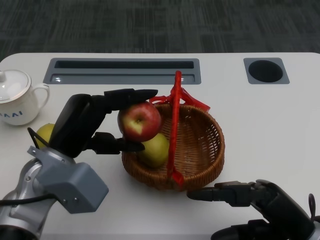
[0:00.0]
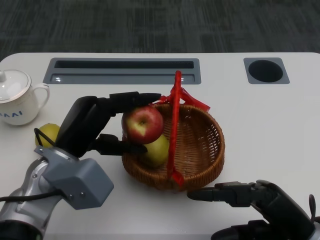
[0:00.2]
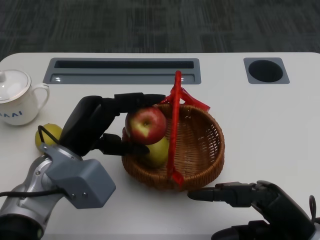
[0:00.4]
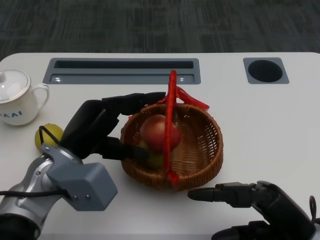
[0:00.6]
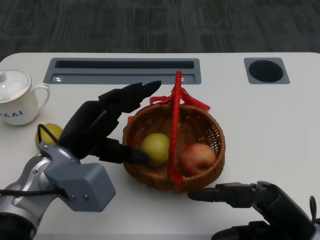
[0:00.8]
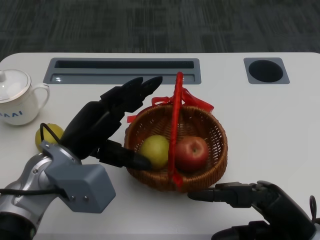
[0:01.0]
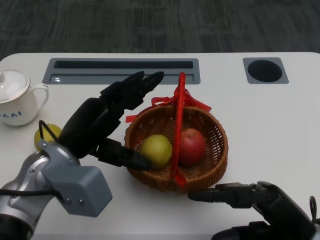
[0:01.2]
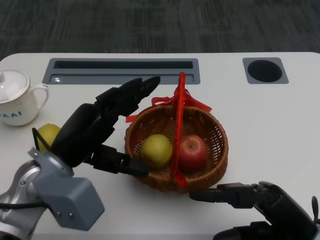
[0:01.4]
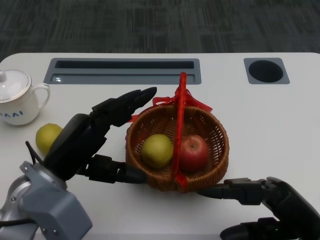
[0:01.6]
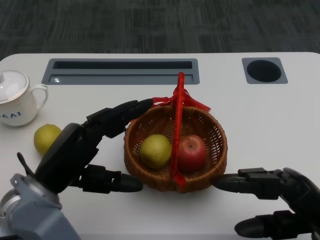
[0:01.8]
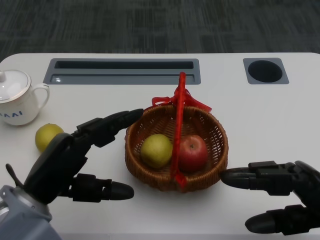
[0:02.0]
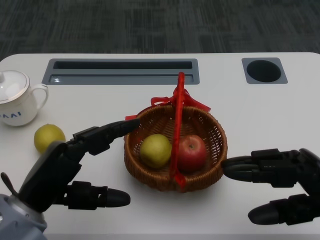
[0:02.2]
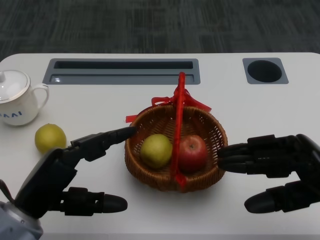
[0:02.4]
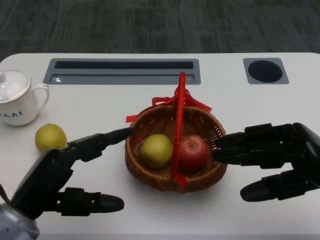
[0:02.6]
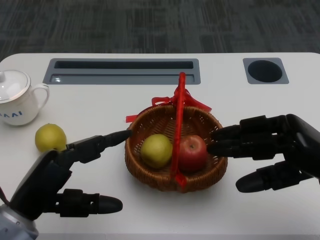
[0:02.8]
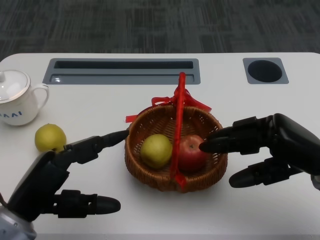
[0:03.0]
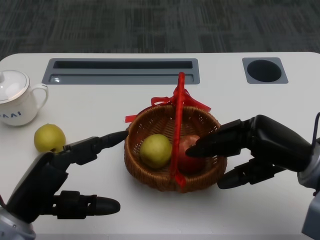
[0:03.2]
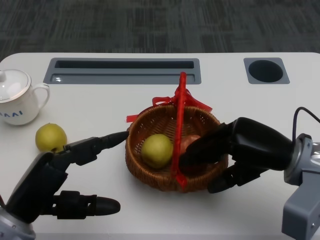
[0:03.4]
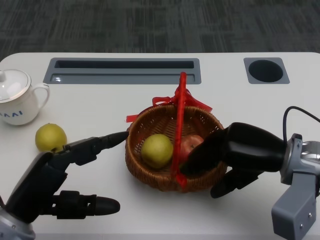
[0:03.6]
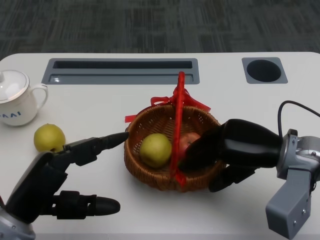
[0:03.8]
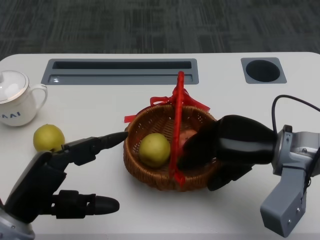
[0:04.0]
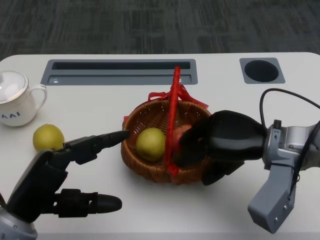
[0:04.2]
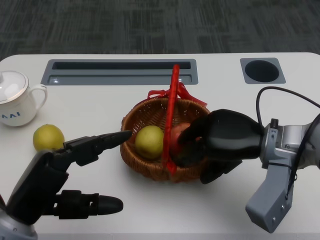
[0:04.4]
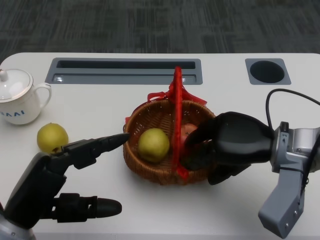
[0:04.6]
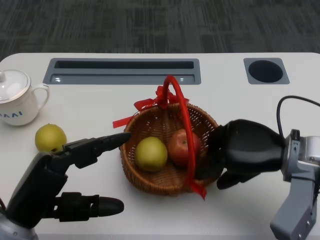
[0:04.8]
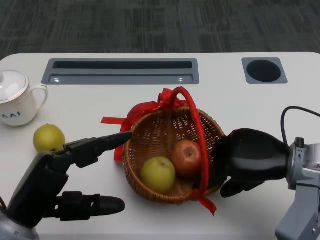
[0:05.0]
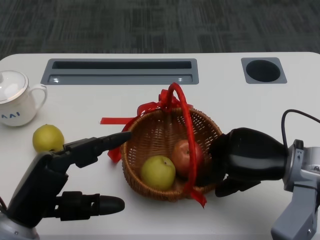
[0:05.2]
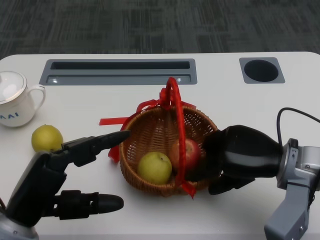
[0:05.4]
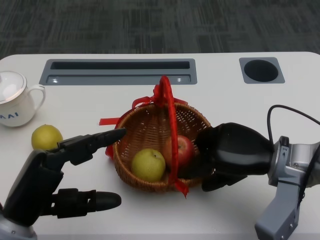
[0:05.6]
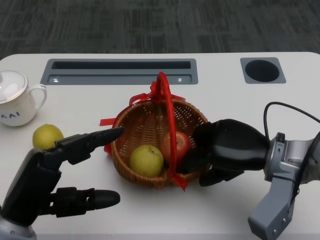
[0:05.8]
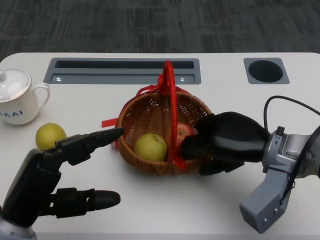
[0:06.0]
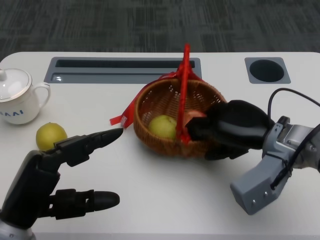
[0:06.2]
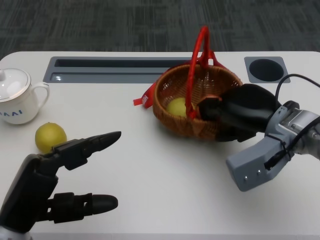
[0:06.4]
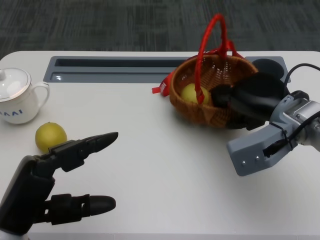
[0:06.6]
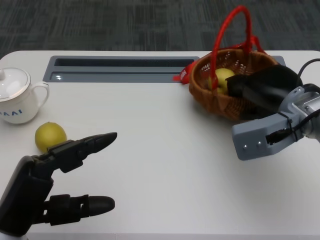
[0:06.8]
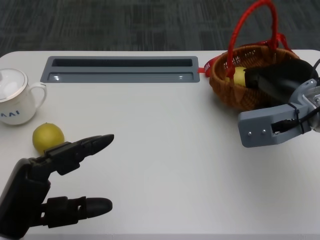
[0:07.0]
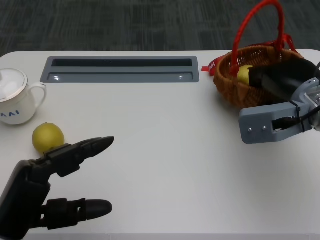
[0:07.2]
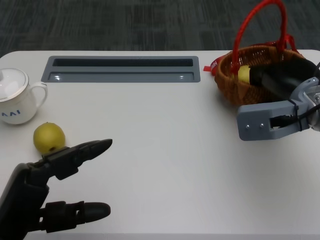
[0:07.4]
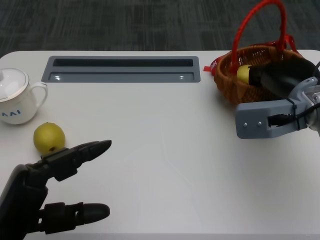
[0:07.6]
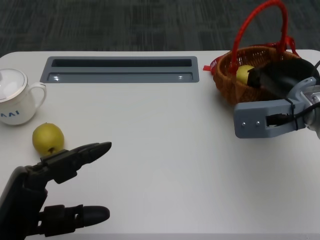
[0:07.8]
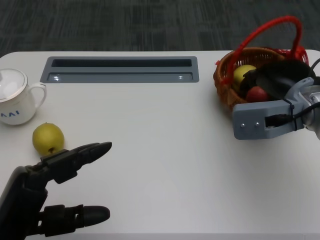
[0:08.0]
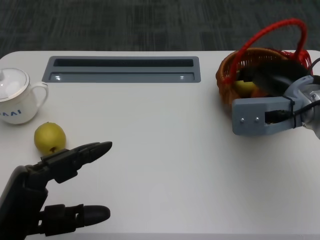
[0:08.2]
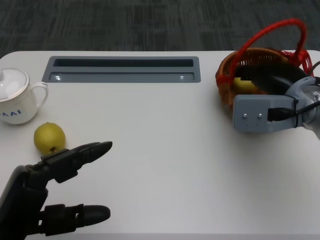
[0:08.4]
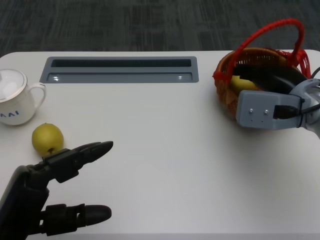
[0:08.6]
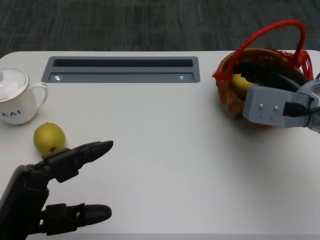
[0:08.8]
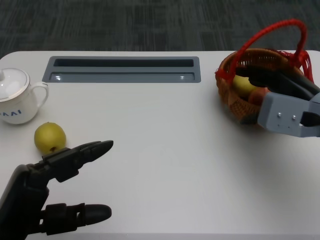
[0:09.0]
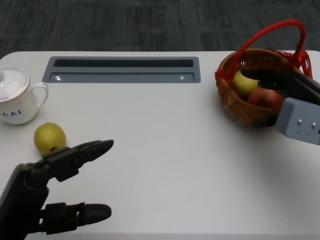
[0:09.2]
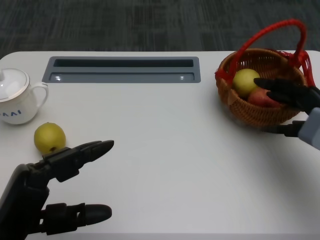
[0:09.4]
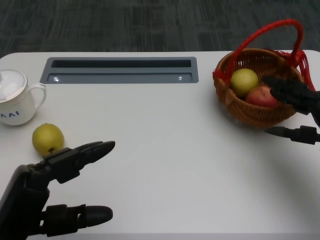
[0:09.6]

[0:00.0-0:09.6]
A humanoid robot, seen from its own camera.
Step, 0:00.0 to 0:02.2: Grasp the basket with the right gripper.
Step, 0:02.4 to 0:05.2: Move the basket to the front of the table with the right gripper.
0:01.6 to 0:03.2: The right hand moves forward, approximately 10 cm. The left hand heads backward, covering approximately 5 cm.
0:08.0 to 0:09.6: The right hand shifts some 10 cm to the right and backward.

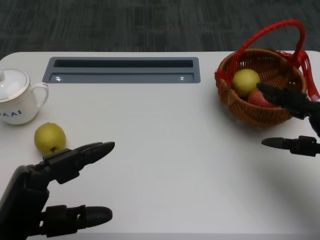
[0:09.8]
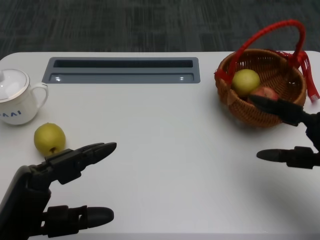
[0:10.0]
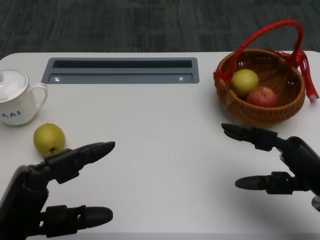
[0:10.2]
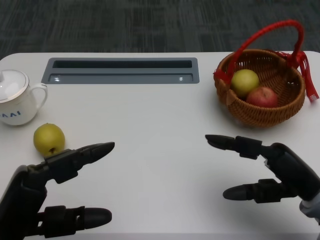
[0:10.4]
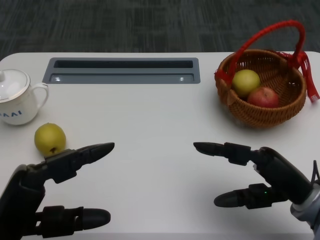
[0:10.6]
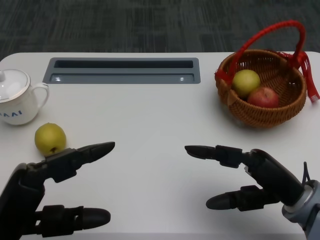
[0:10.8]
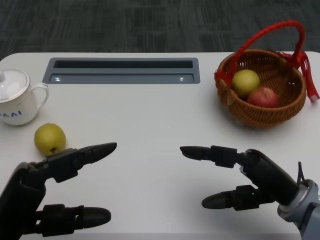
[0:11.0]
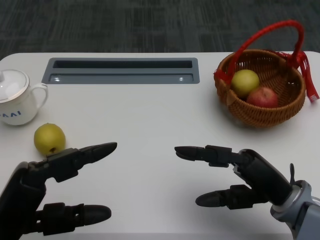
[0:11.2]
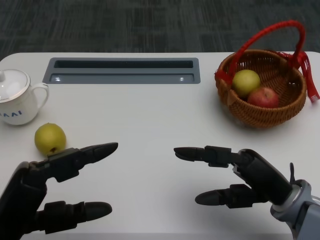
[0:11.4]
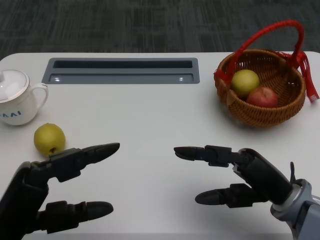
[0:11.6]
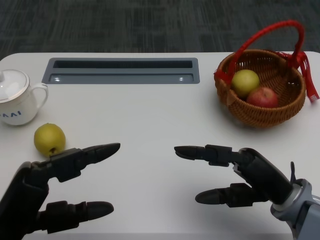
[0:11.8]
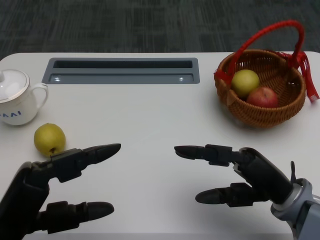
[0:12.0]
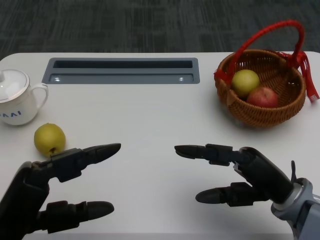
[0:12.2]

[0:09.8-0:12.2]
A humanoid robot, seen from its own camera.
0:09.8 to 0:11.0: The right hand is displaced to the left by about 10 cm.
0:11.0 to 0:12.2: Neither hand changes place.

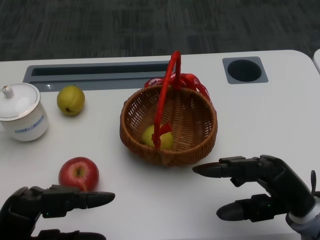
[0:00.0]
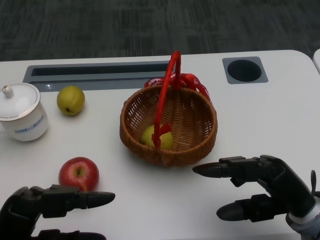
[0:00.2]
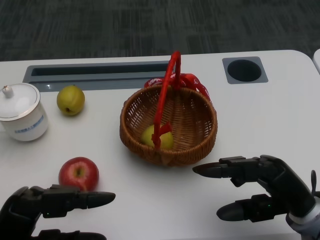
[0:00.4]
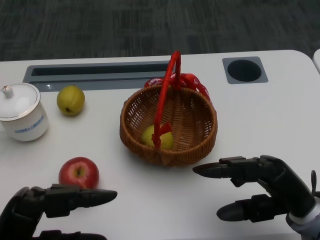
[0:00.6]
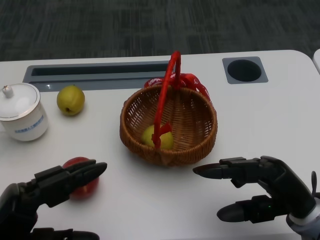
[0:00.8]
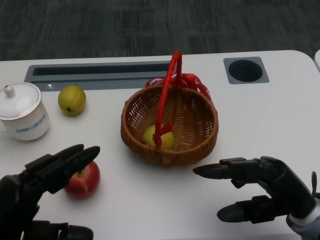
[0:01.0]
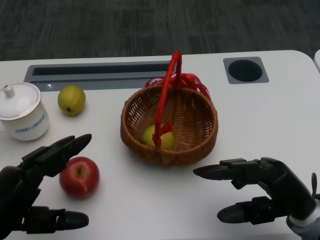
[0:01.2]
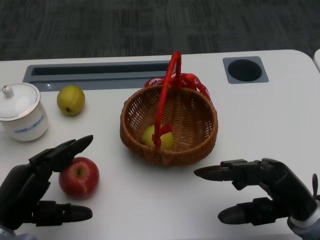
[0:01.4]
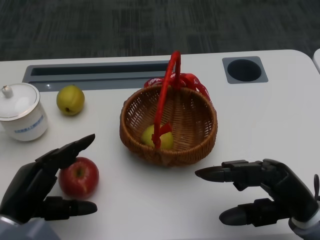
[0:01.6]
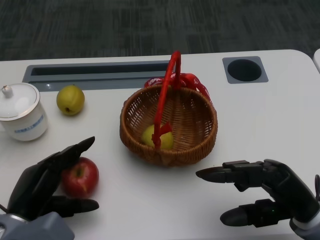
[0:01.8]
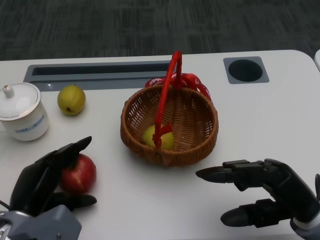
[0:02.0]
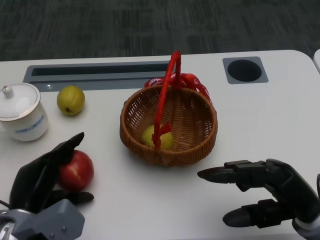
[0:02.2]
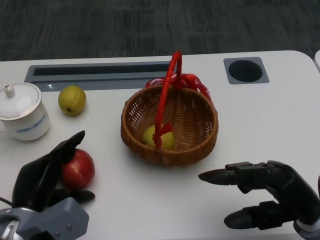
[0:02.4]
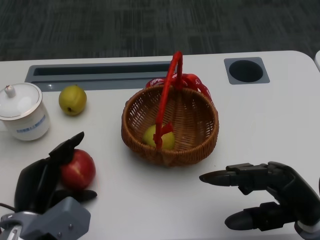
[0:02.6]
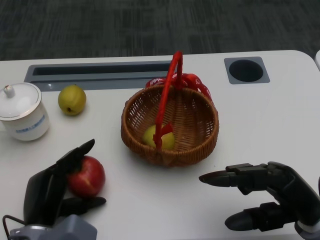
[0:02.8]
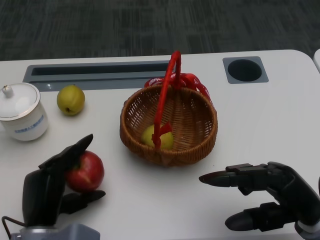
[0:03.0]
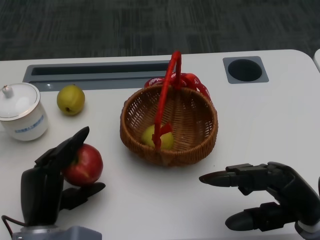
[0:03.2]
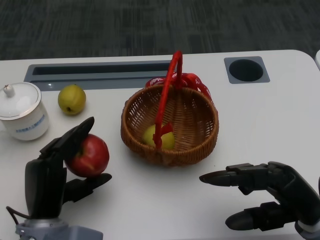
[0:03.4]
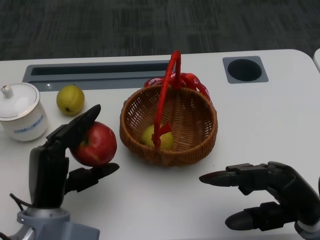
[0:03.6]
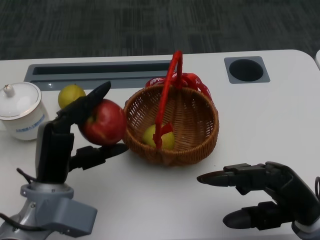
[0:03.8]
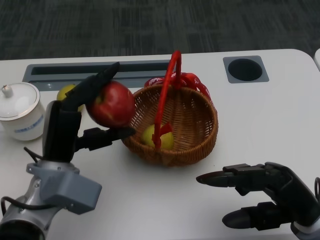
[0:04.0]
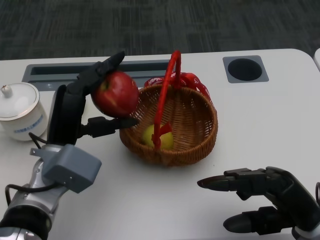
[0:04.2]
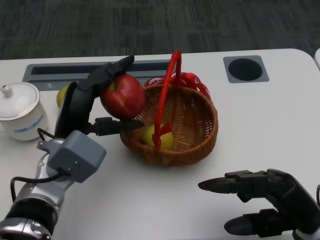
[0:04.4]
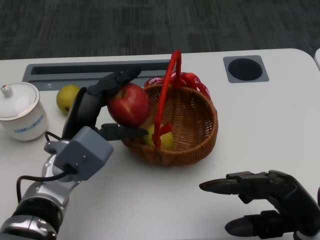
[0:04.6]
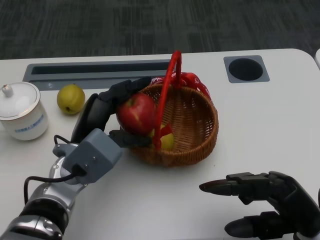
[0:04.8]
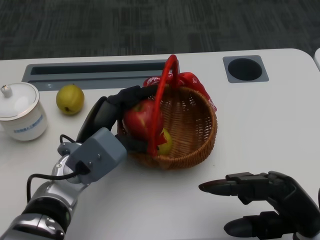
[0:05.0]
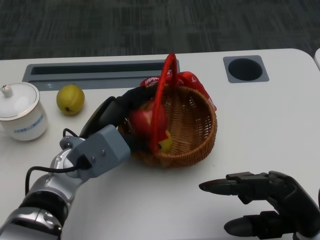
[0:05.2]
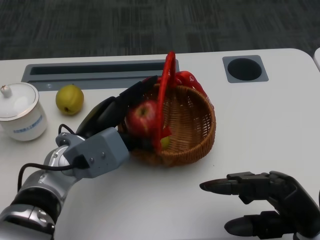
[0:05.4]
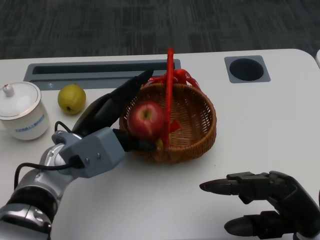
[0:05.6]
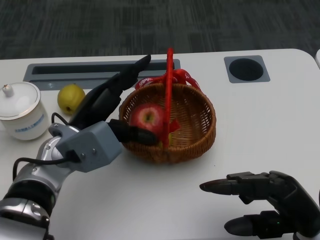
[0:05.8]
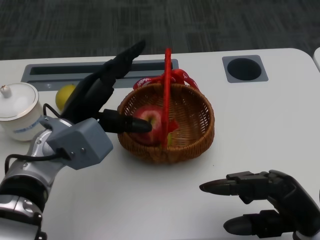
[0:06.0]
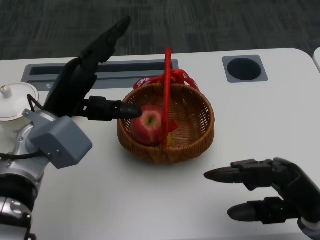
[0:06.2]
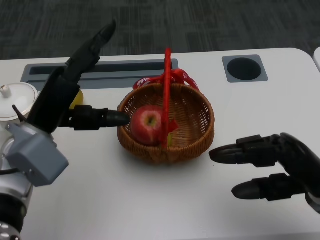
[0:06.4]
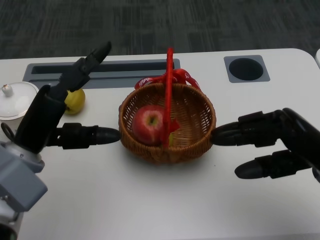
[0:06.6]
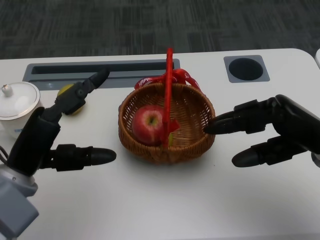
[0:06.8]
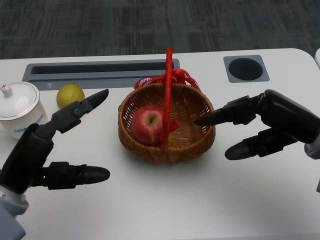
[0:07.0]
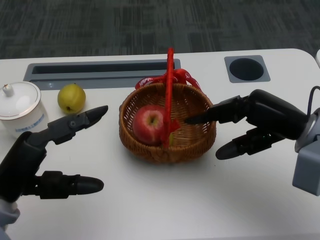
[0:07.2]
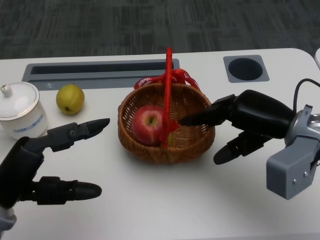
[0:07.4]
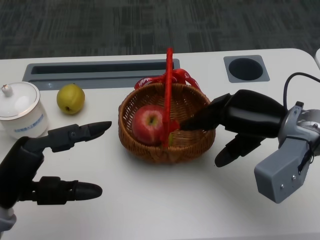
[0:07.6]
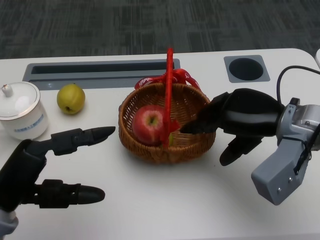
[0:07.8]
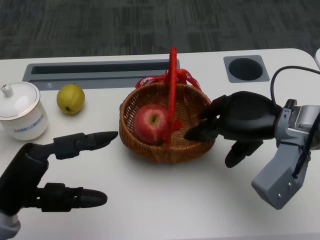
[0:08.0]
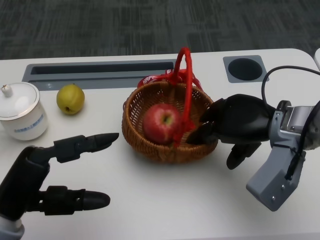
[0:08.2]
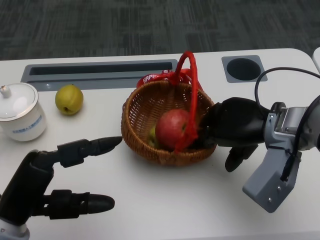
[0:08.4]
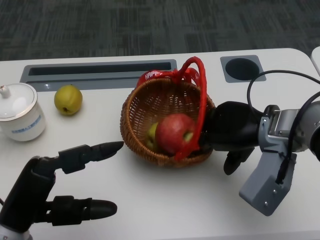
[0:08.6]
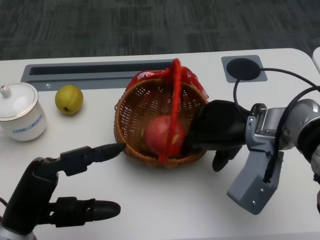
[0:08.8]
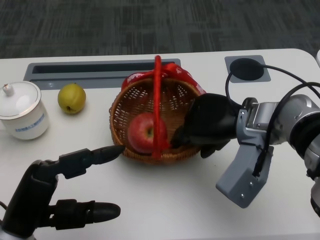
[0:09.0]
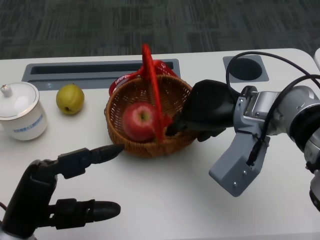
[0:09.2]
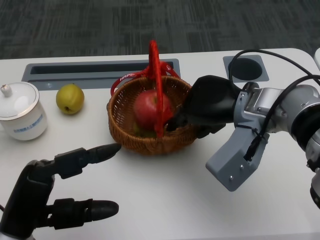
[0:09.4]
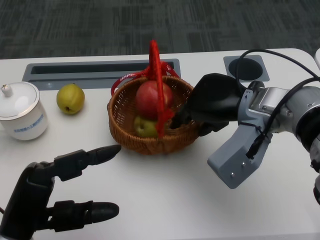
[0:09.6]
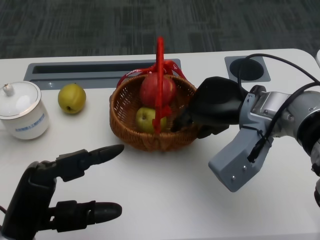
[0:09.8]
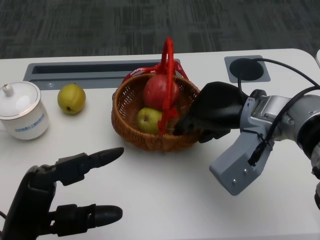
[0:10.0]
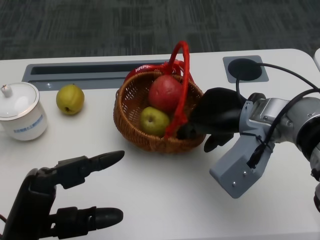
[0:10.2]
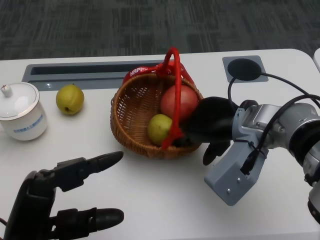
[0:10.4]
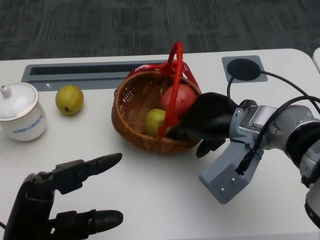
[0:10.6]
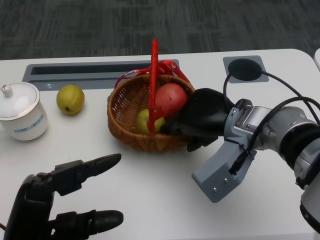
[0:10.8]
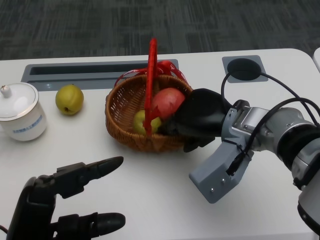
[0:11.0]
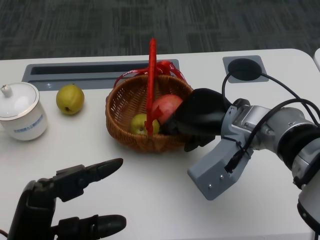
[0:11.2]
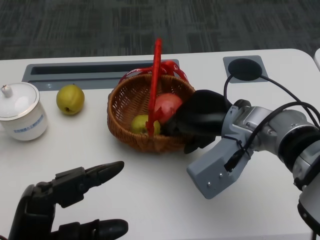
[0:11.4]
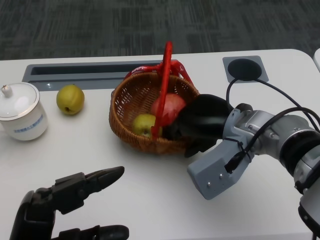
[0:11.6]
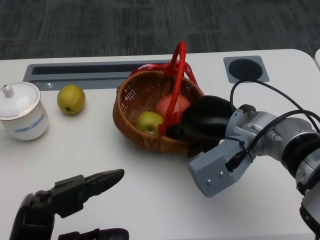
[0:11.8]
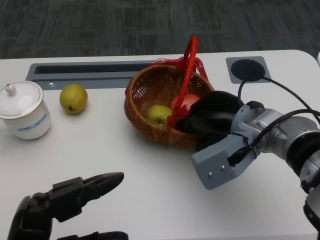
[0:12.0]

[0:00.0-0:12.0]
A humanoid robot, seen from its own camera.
Step, 0:00.6 to 0:02.2: Grasp the apple with the left gripper.
Step, 0:02.4 to 0:04.4: Place the apple into the basket with the left gripper.
Step, 0:04.6 to 0:08.8: Grasp the basket with the right gripper.
Step, 0:09.0 to 0:11.2: Move the basket to the front of the table with the right gripper.
0:01.6 to 0:03.0: The left hand moves to the right, some 5 cm.
0:03.0 to 0:04.4: The left hand moves upward and forward, approximately 15 cm.
0:06.0 to 0:07.6: The right hand heads forward and upward, covering approximately 15 cm; the left hand moves backward and to the left, about 15 cm.
0:07.6 to 0:09.0: The right hand shifts approximately 5 cm to the left.
